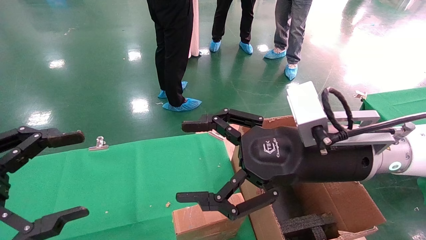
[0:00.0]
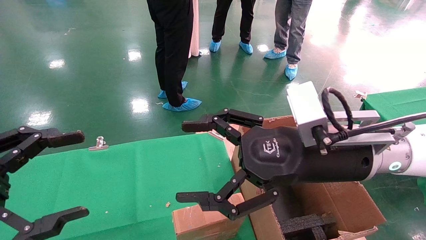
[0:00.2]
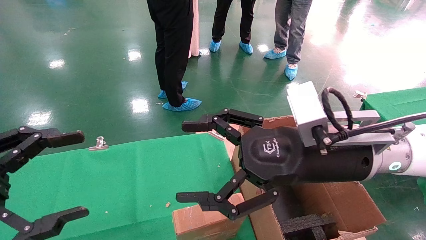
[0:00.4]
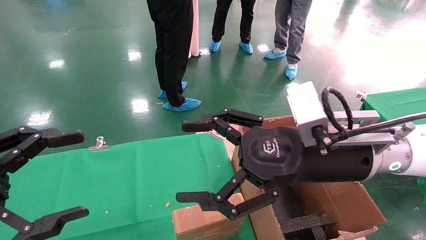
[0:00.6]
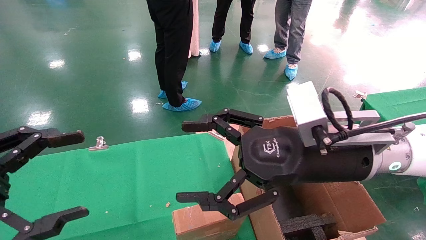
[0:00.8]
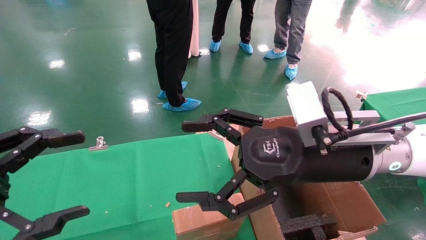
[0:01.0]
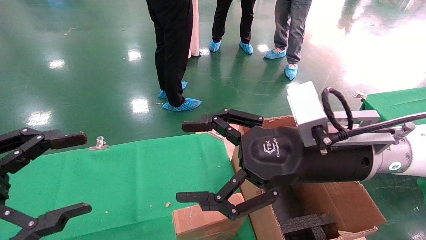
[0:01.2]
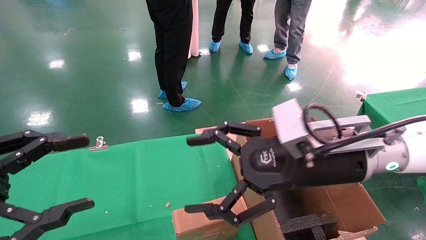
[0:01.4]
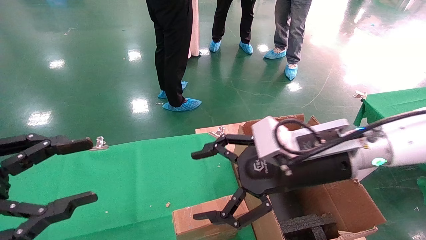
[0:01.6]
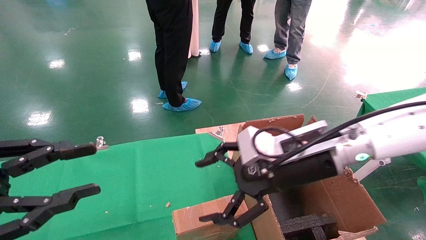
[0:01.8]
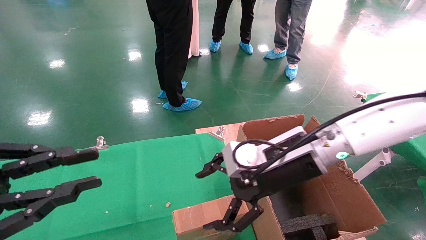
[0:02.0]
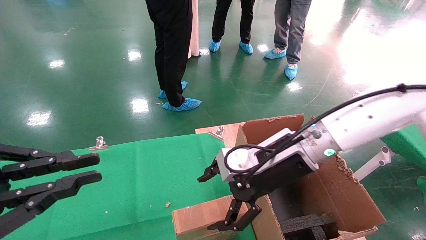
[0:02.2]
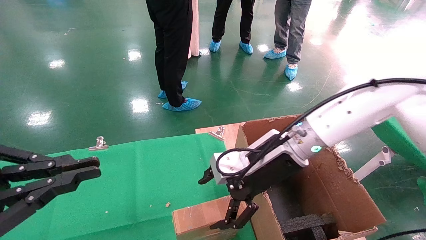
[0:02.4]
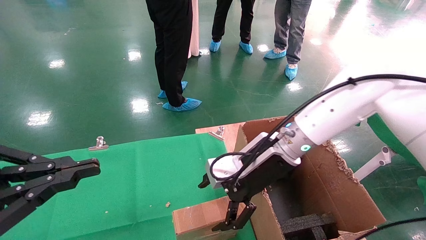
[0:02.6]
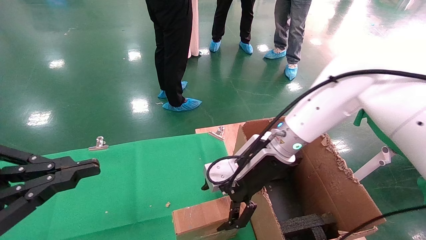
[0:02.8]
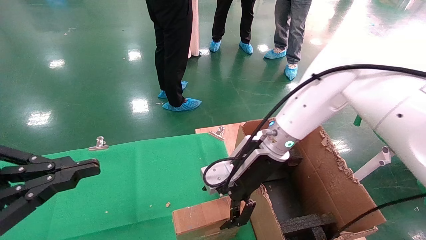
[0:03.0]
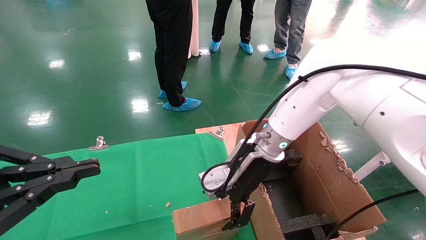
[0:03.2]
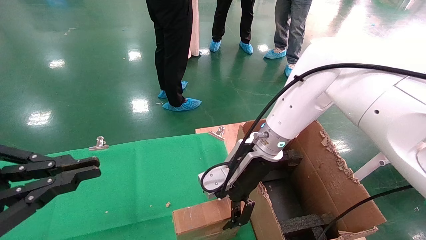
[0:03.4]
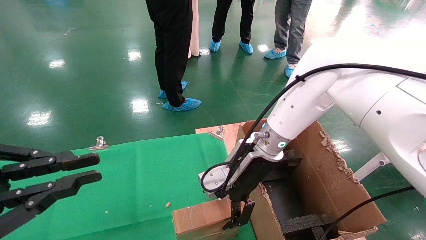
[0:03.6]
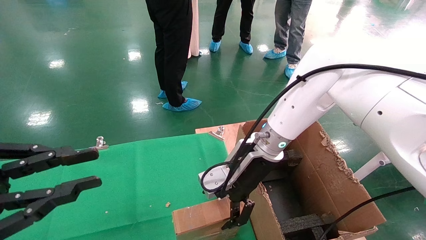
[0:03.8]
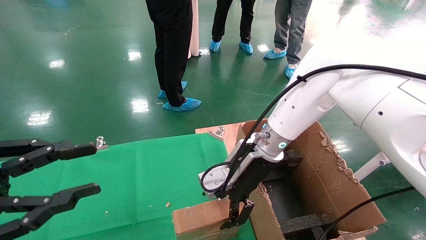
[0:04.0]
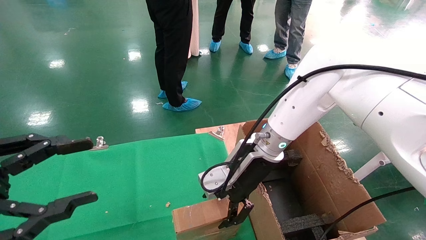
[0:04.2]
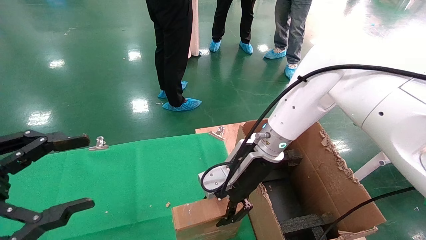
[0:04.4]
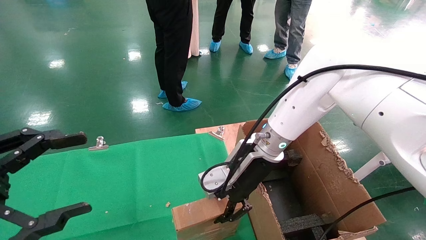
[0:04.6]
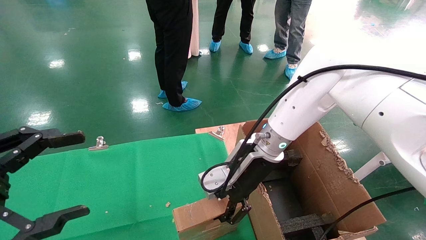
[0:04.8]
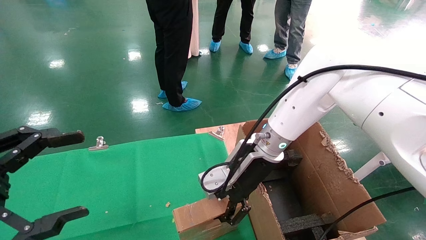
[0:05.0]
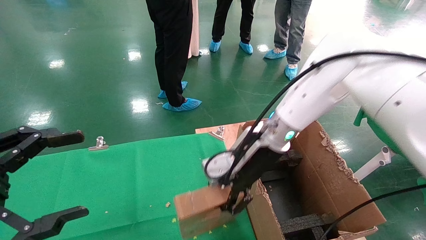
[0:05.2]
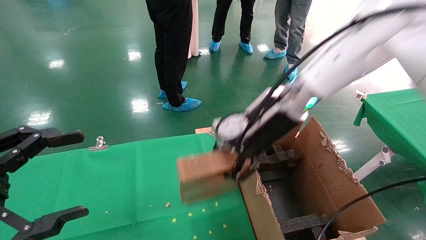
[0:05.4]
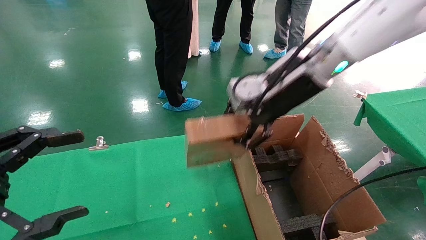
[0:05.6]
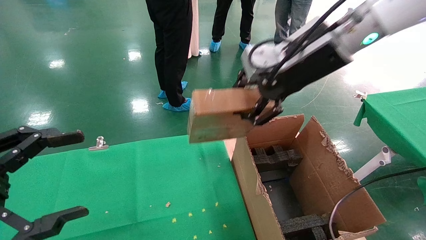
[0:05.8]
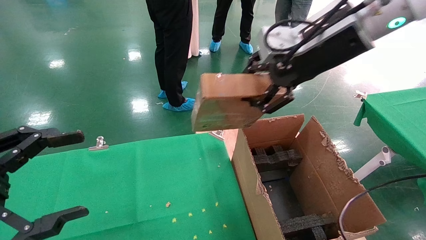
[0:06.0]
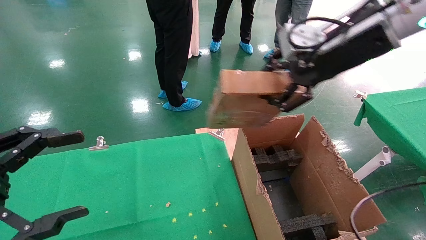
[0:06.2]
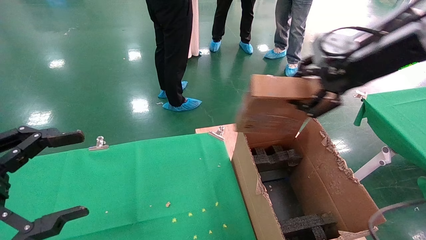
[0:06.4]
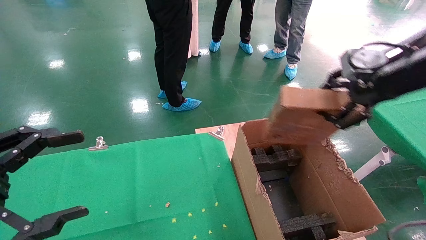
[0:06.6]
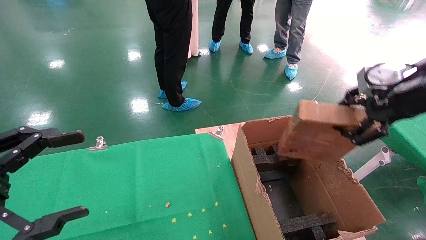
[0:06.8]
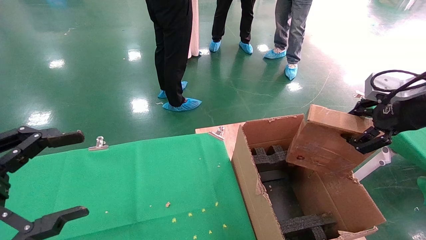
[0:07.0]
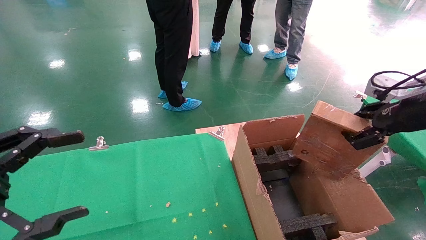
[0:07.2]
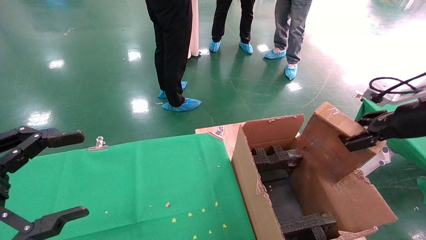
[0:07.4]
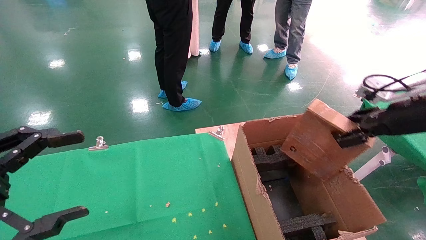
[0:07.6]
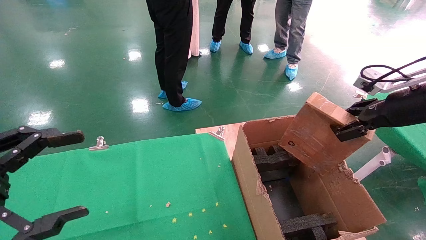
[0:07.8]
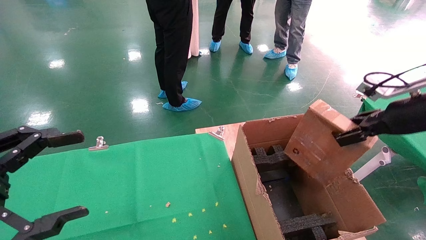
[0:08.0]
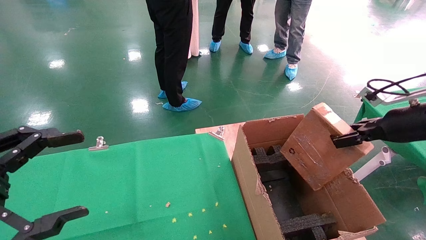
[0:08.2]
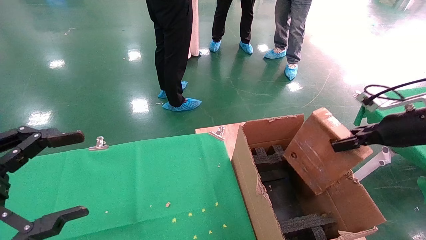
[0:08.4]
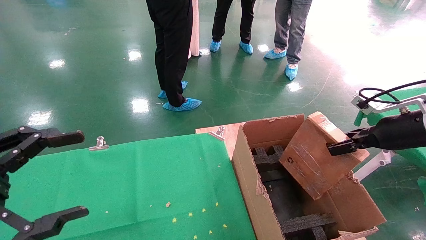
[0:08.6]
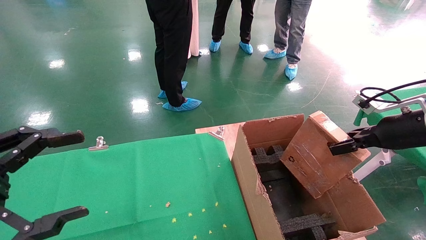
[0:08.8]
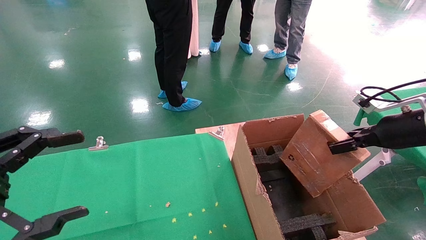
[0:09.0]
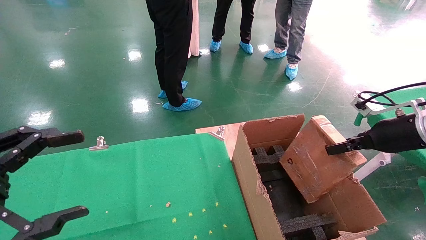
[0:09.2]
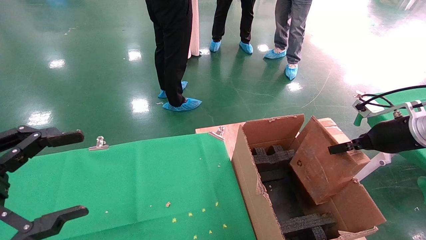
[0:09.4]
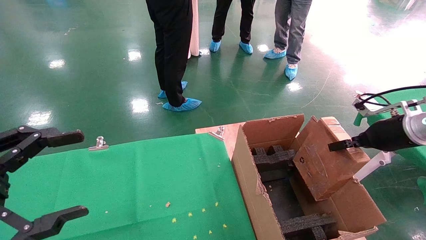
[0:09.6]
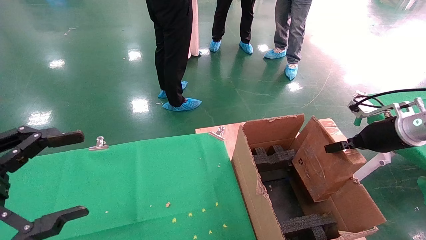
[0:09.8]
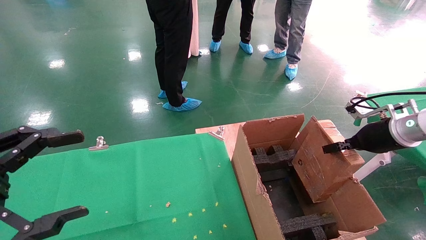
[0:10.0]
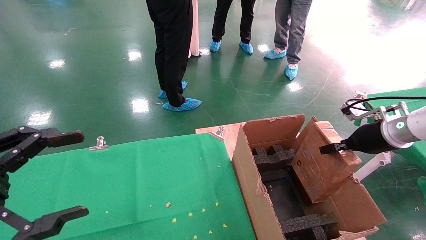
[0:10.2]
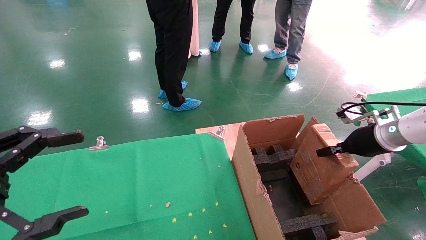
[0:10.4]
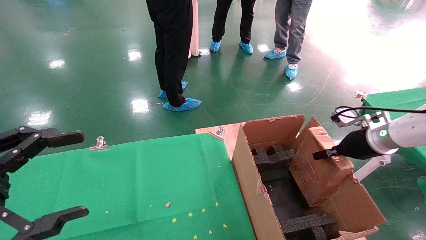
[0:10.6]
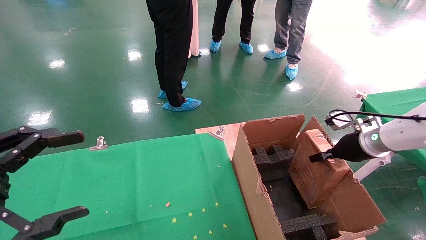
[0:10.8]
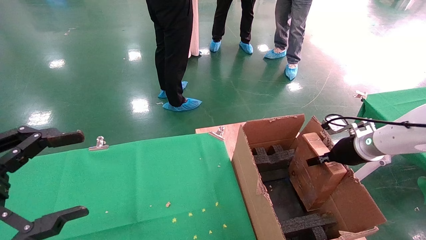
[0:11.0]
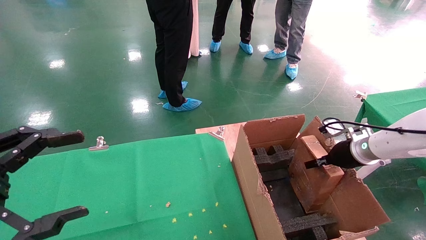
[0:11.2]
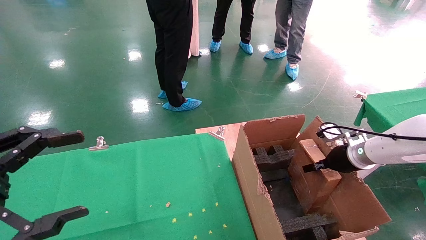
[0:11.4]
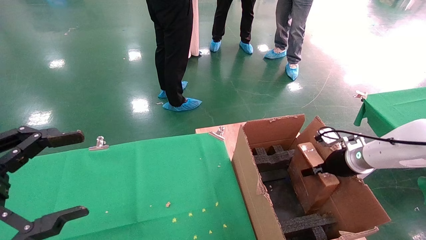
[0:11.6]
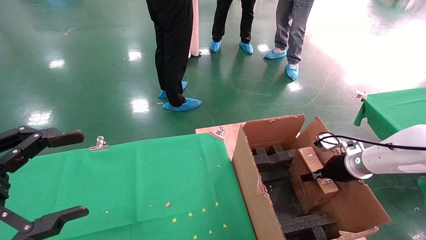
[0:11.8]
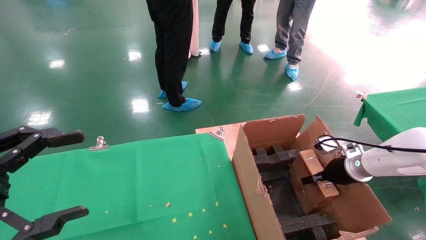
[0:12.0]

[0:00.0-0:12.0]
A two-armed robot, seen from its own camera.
Task of the whole recording: using a robotic arm to pick up a cardboard box and palace it the carton.
Step, 0:01.6 to 0:04.6: Pick up the mouse and the power cord paper box.
0:01.6 to 0:03.0: The left gripper closes up; the right gripper goes roughly 10 cm forward.
0:03.0 to 0:04.4: The left gripper opens.
0:04.4 to 0:06.0: The right gripper moves upward and to the right, roughly 25 cm, and closes. Meanwhile the left gripper opens its fingers.
0:06.0 to 0:07.6: The right gripper is displaced to the right and downward by roughly 25 cm.
0:07.6 to 0:09.0: The right gripper shifts by roughly 5 cm.
0:09.0 to 0:10.4: The right gripper shifts roughly 5 cm forward.
0:10.4 to 0:12.0: The right gripper shifts roughly 10 cm downward.

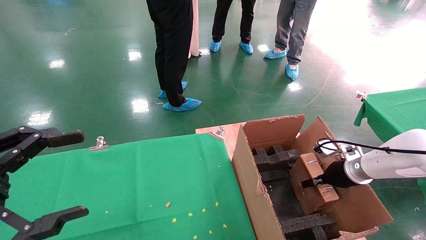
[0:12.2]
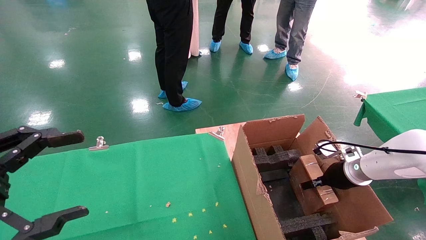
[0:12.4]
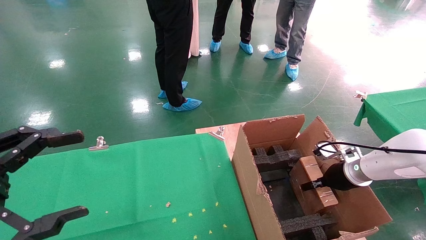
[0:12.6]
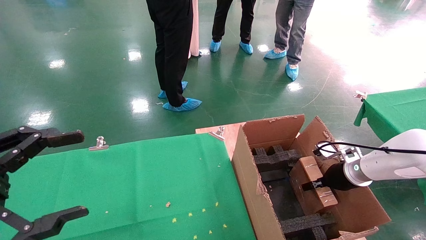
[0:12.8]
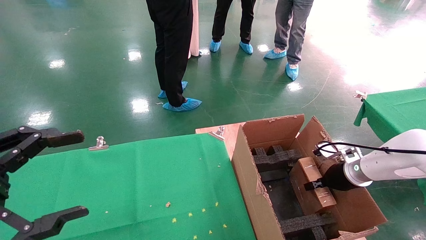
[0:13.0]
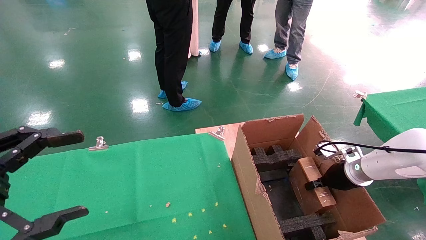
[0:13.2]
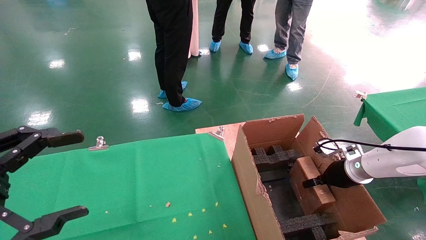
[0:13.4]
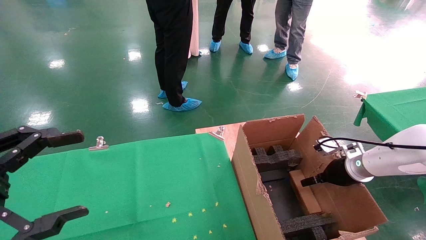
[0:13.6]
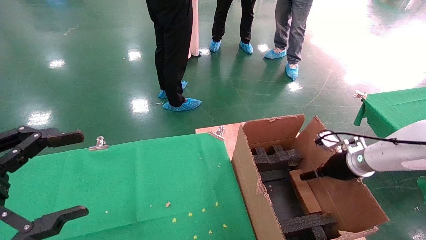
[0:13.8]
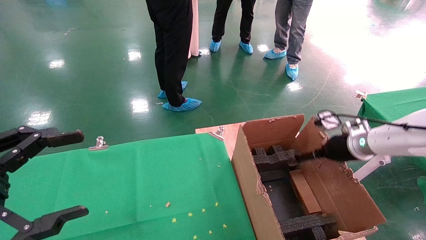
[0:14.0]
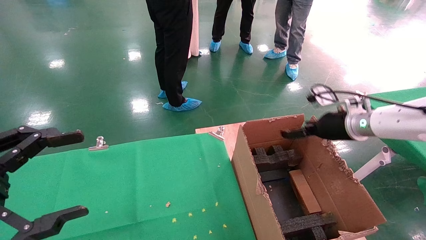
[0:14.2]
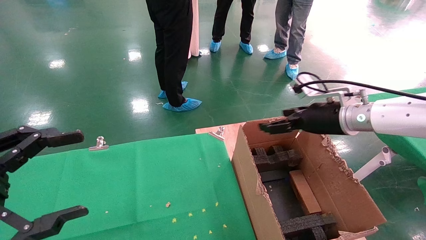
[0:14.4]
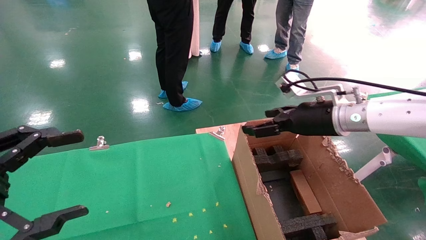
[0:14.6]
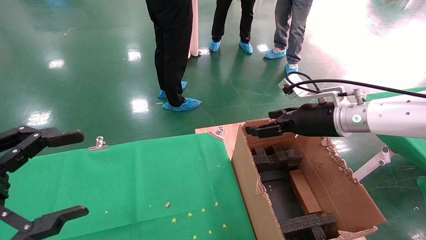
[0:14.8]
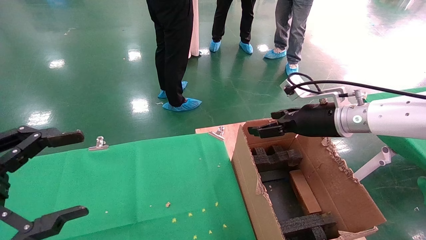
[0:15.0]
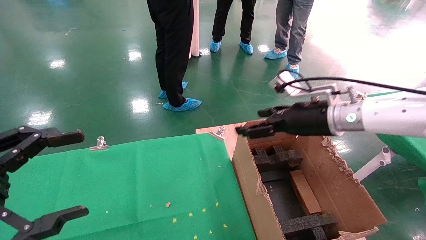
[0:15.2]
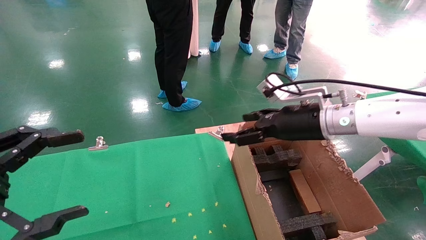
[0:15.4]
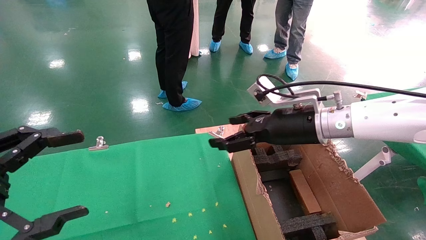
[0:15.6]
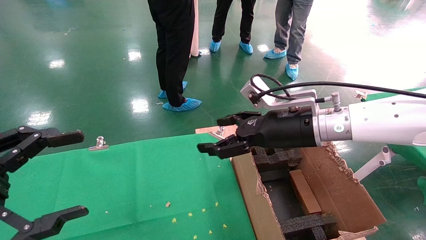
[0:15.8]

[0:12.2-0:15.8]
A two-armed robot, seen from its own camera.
Task of the whole recording: using a robotic arm to pick up a cardboard box and palace it the carton.
0:12.2 to 0:14.0: The right gripper heads upward, covering some 5 cm, and opens its fingers.
0:14.0 to 0:15.8: The right gripper goes approximately 20 cm to the left and upward.
